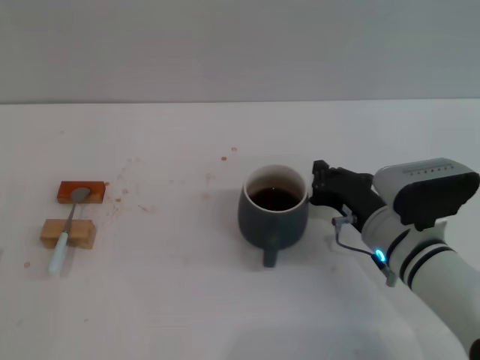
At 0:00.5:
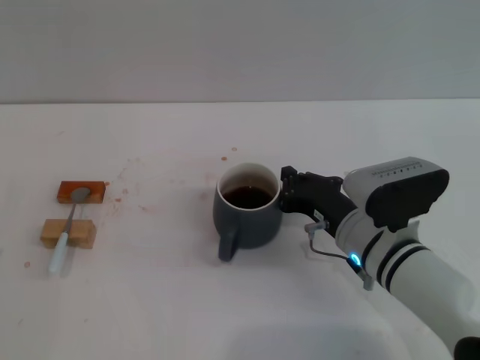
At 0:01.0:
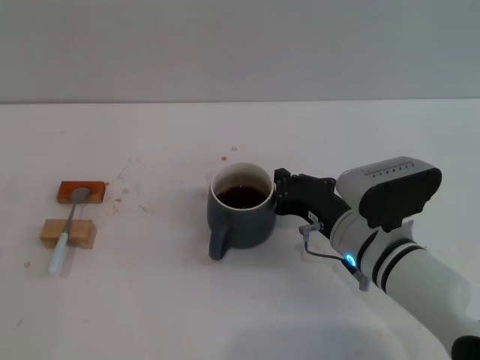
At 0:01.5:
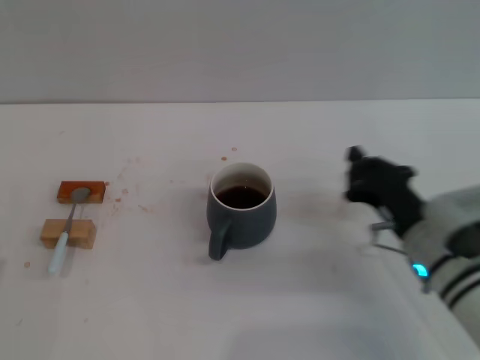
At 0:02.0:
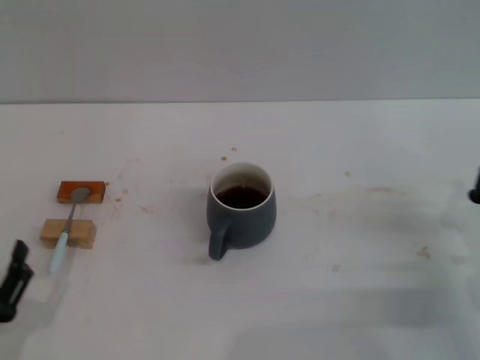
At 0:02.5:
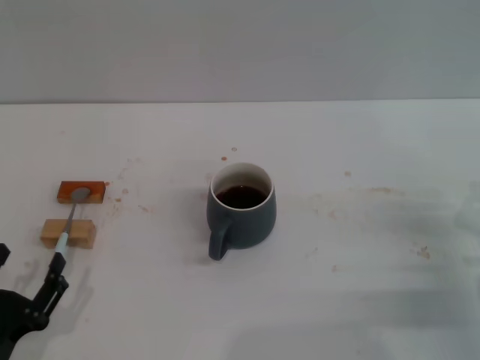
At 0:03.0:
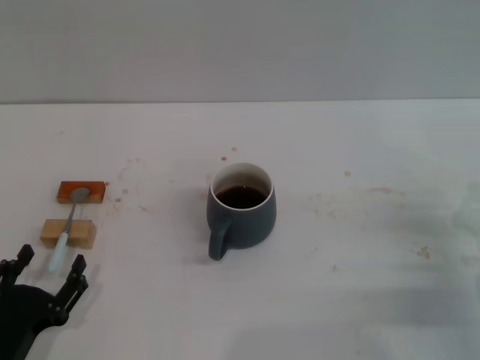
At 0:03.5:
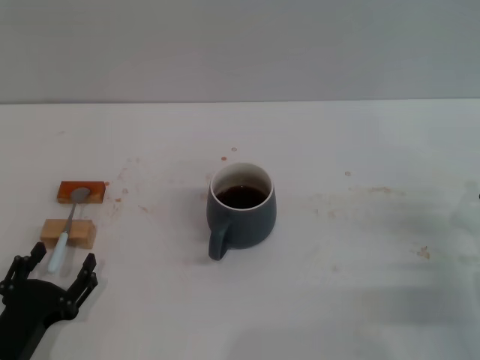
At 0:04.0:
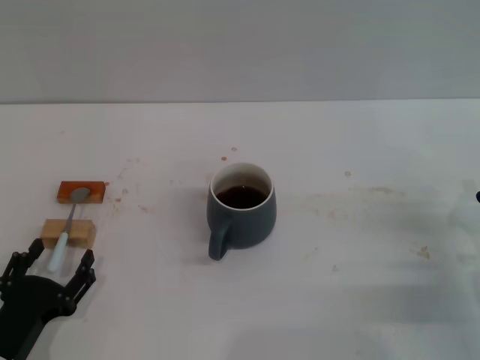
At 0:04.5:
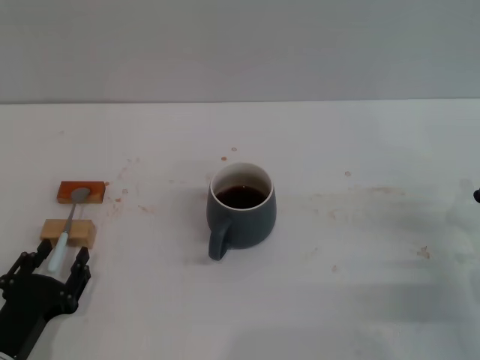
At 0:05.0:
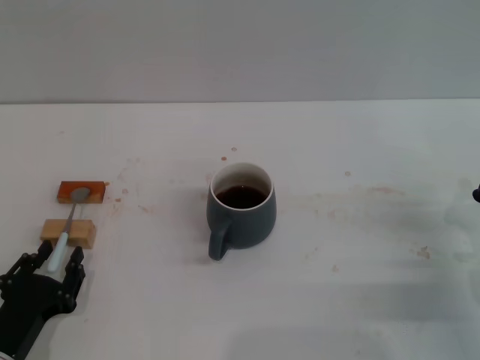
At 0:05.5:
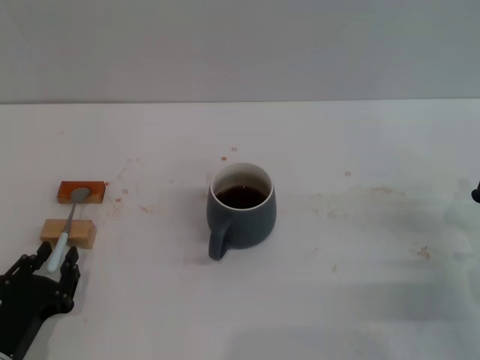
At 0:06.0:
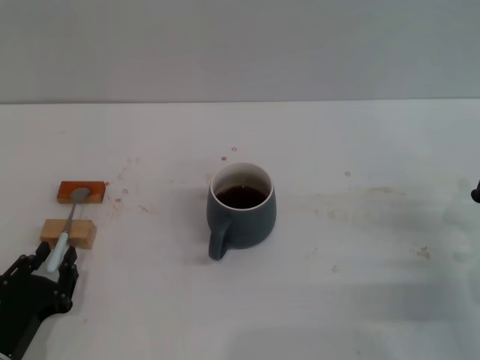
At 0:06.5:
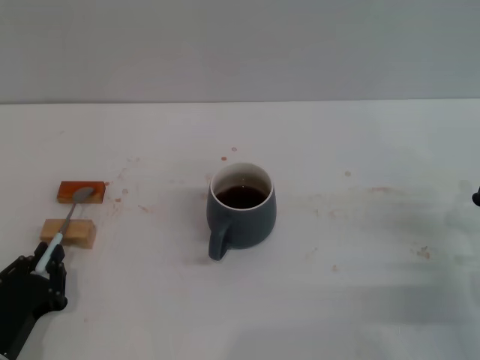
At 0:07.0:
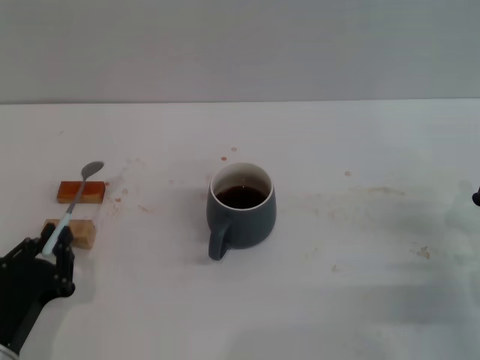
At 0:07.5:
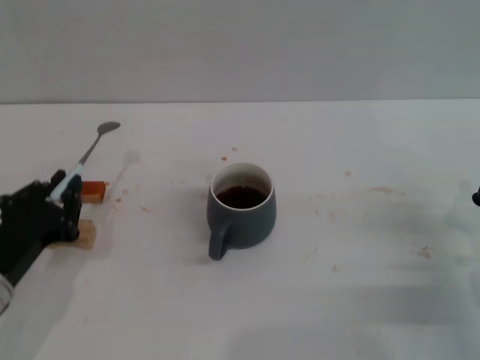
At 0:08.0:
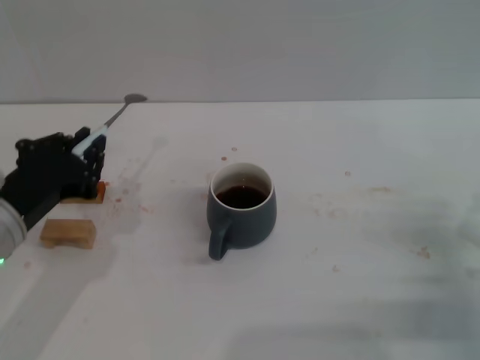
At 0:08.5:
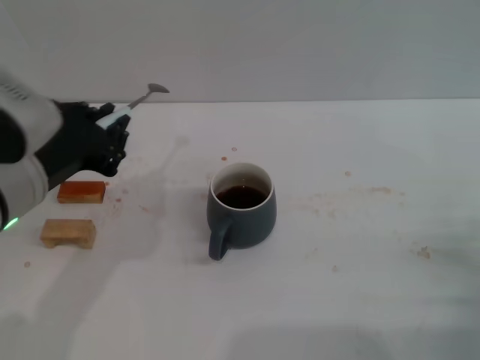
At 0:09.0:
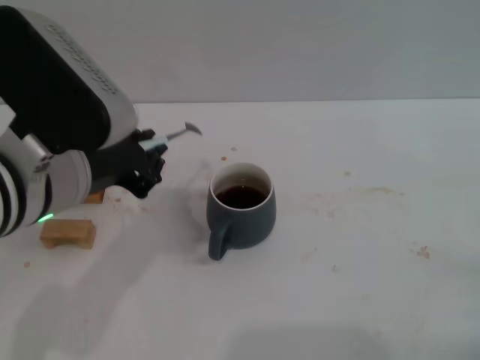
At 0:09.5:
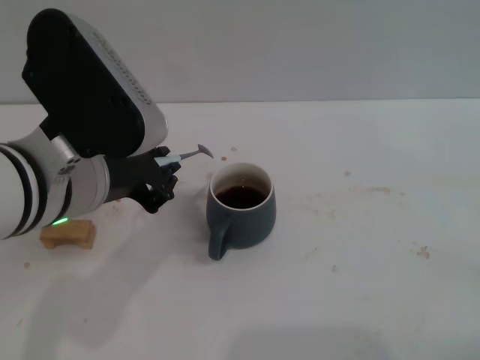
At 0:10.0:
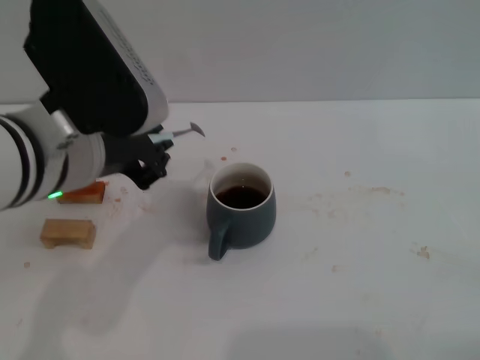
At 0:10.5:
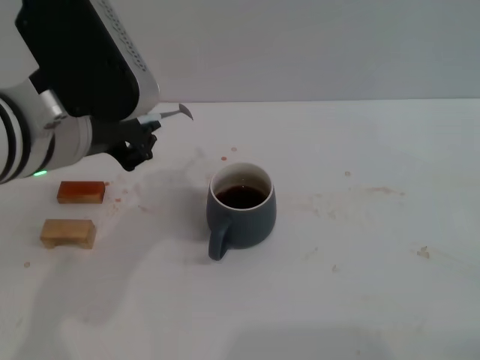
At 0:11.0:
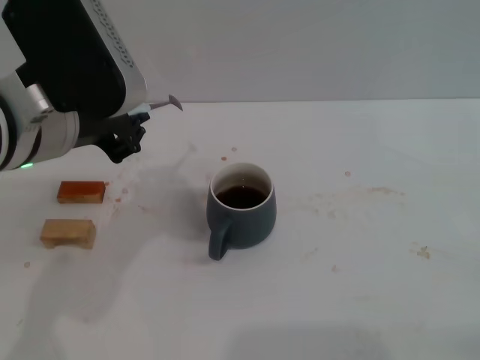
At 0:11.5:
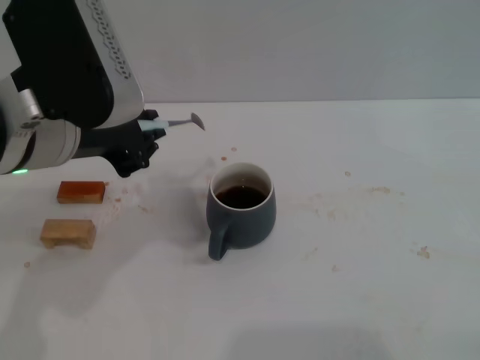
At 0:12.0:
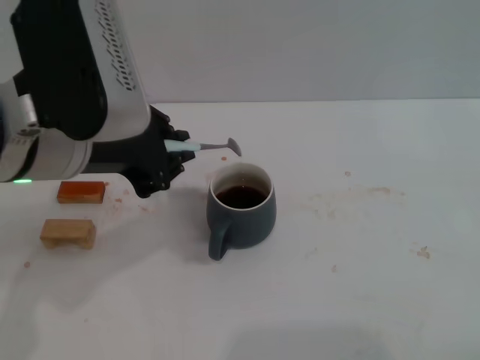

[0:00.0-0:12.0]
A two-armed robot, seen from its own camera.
Task of the whole recording: Move the grey cup to the center, lift the blue spoon, stir it three times in the cup, and put the spoon into the cup.
Step, 0:01.5 to 0:07.0: Pick up the spoon with the left gripper.
0:00.0 to 0:02.0: The right gripper goes about 15 cm to the right and backward, while the left gripper ends up some 5 cm from where it was.
0:02.0 to 0:04.0: The left gripper changes place by approximately 5 cm.
0:04.0 to 0:06.0: The left gripper closes up.
0:06.0 to 0:08.0: The left gripper travels upward and forward by about 15 cm.
0:08.0 to 0:10.0: The right gripper moves to the right, some 5 cm, while the left gripper goes about 10 cm upward and to the right.
0:10.0 to 0:12.0: The grippers move only a little.

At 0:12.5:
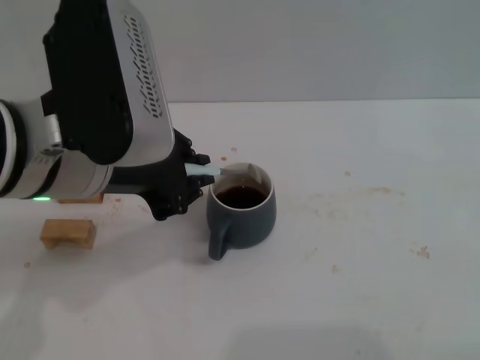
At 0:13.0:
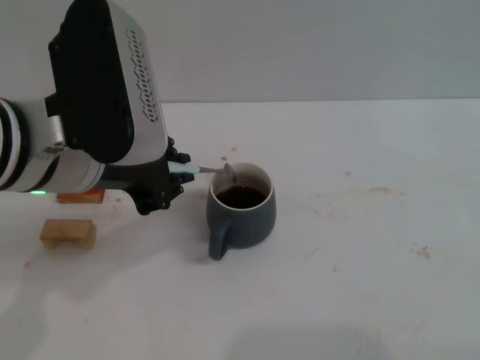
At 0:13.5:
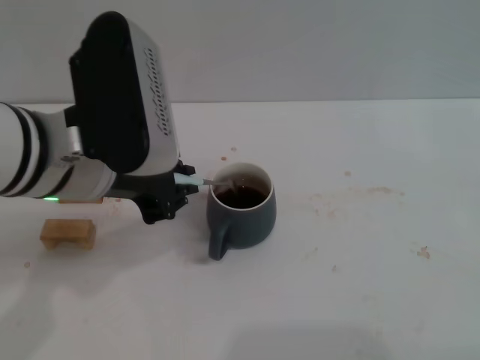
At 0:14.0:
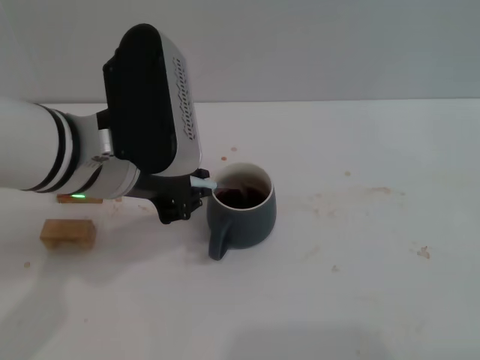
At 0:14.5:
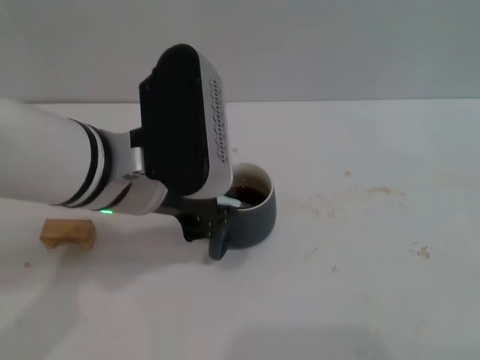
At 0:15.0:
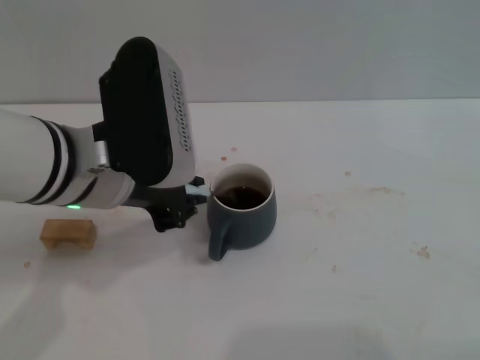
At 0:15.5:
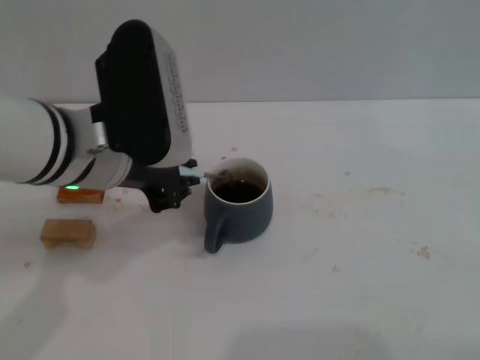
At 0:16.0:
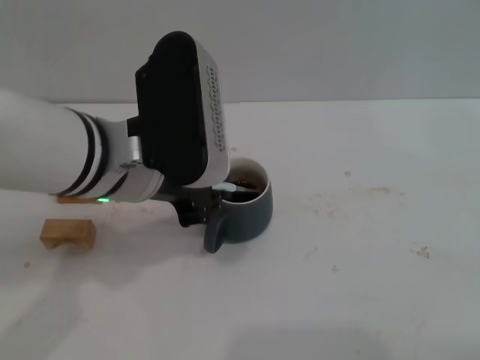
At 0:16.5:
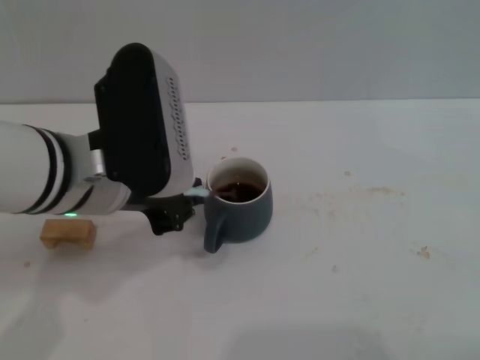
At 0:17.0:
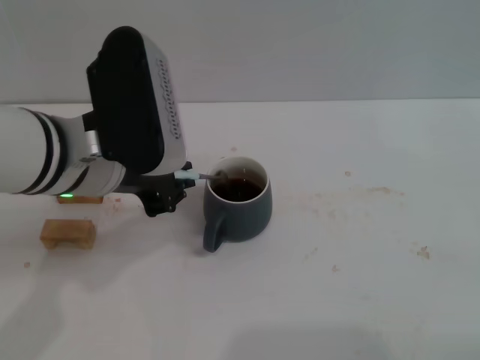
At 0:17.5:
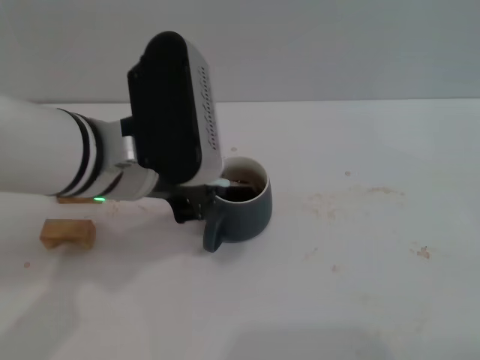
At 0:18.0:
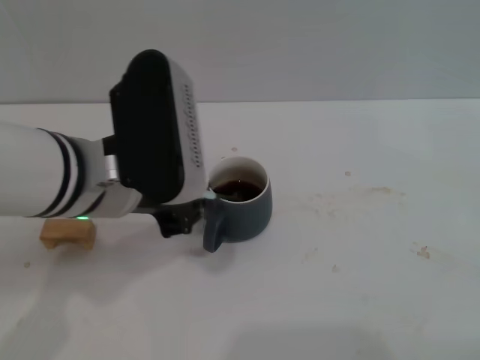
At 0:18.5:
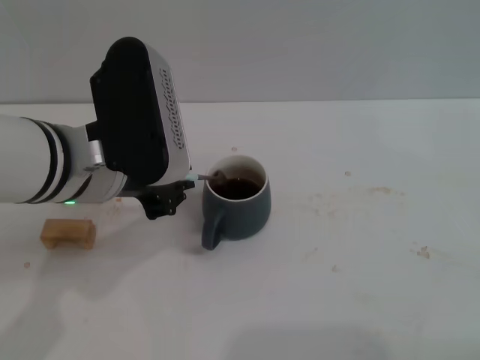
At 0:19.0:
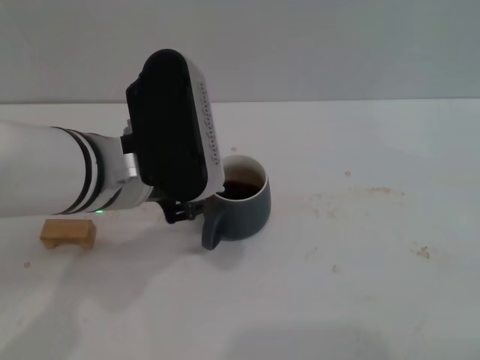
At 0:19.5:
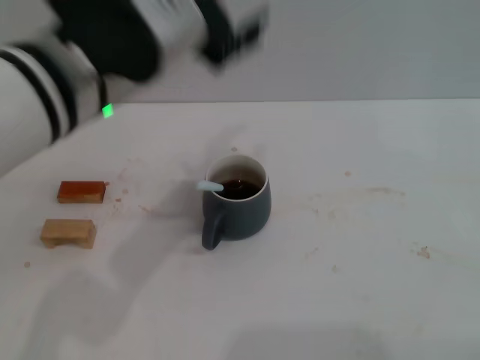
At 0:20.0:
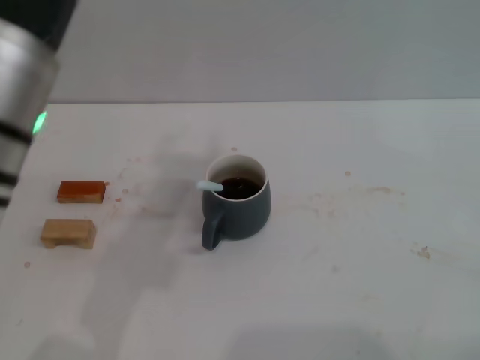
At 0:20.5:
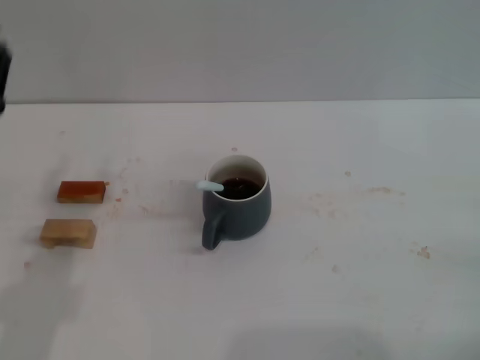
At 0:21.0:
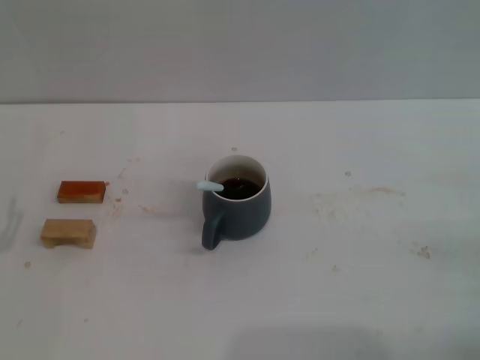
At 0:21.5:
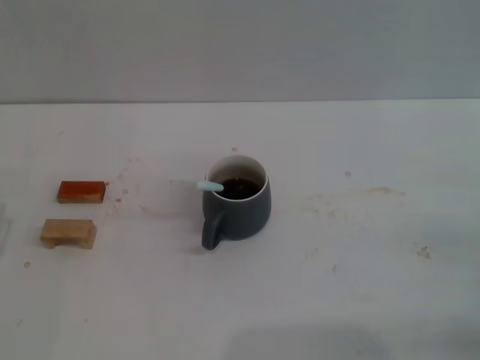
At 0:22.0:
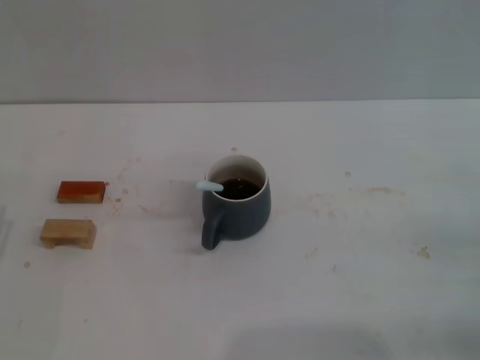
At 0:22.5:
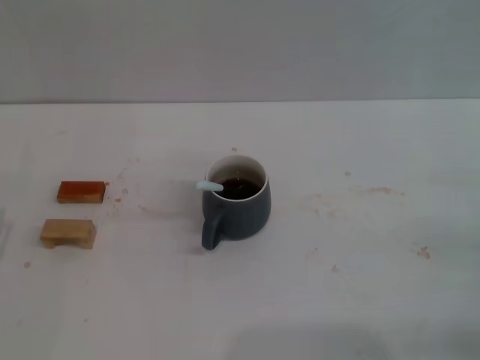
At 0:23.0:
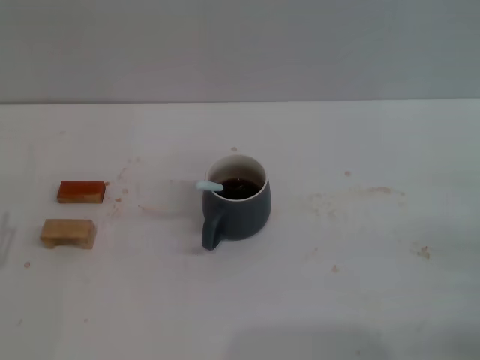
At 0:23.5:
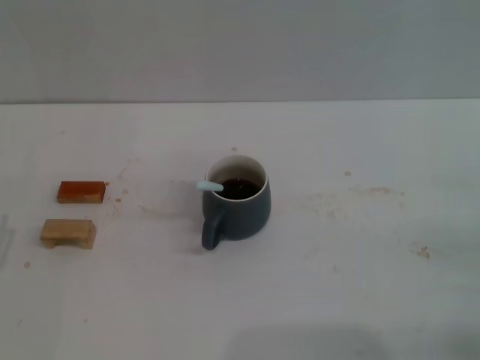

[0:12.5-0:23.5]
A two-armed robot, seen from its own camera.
Task of the whole recording: Move the grey cup to the center, lift the blue spoon, stir it three times in the cup, and put the spoon into the cup.
Step, 0:12.5 to 0:19.0: Stir the coffee in the cup with the left gripper.
0:12.5 to 0:14.5: The left gripper moves roughly 5 cm.
0:14.5 to 0:18.0: The grippers move only a little.
0:18.0 to 0:20.0: The left gripper moves upward, about 5 cm, and opens.
0:20.0 to 0:21.5: The left gripper heads downward and to the left, covering approximately 30 cm.
